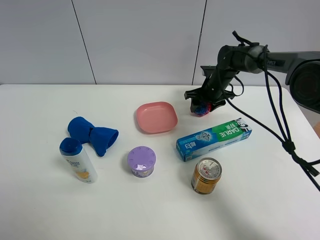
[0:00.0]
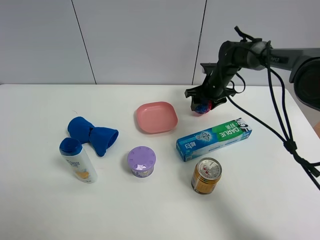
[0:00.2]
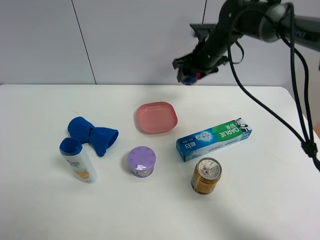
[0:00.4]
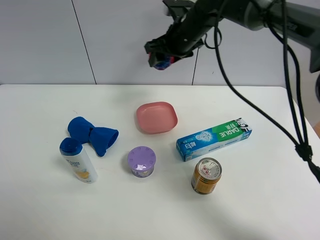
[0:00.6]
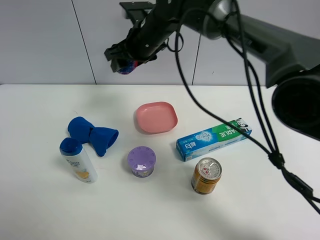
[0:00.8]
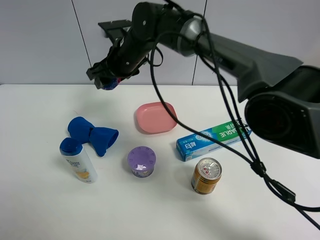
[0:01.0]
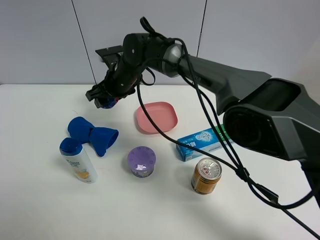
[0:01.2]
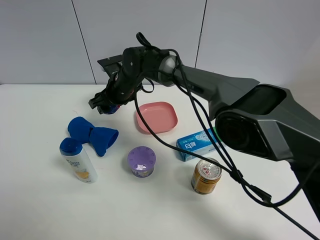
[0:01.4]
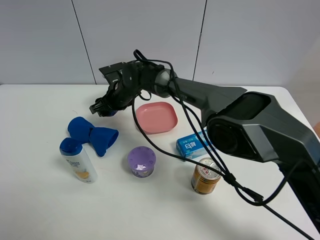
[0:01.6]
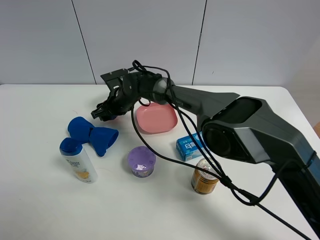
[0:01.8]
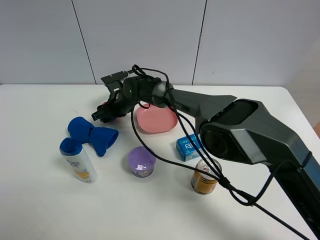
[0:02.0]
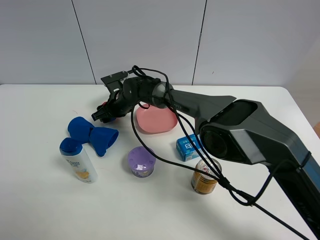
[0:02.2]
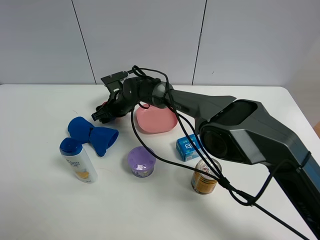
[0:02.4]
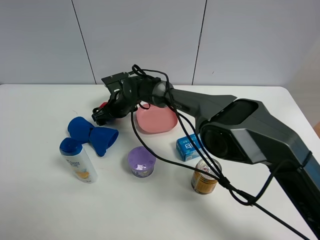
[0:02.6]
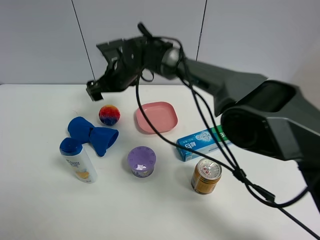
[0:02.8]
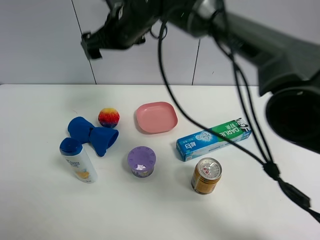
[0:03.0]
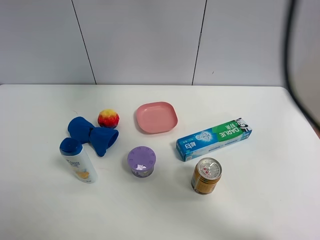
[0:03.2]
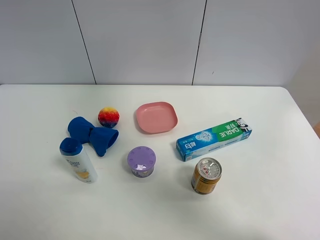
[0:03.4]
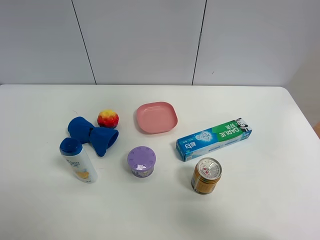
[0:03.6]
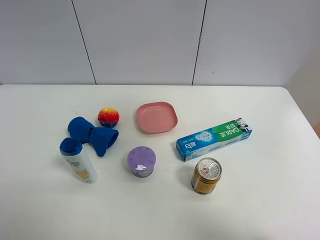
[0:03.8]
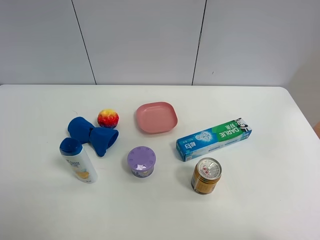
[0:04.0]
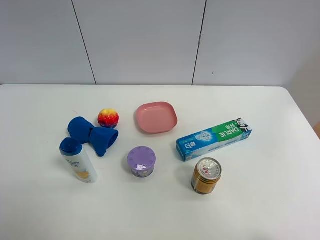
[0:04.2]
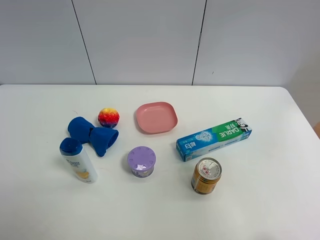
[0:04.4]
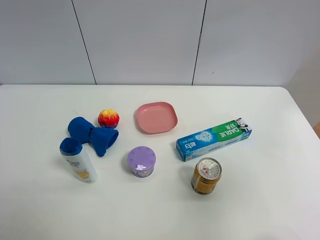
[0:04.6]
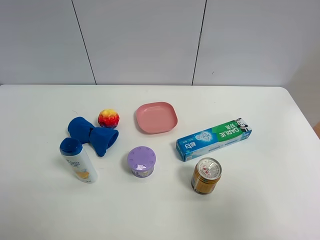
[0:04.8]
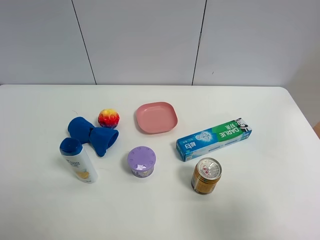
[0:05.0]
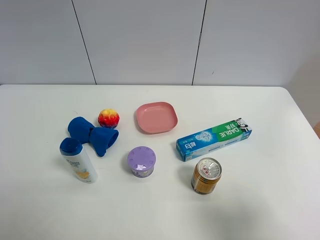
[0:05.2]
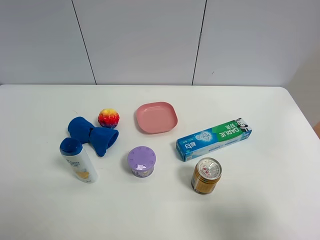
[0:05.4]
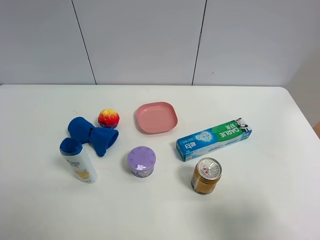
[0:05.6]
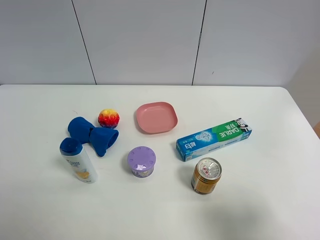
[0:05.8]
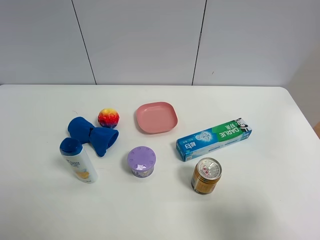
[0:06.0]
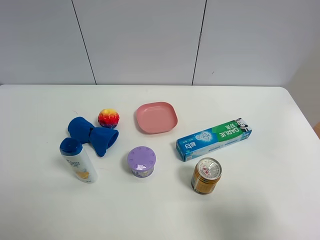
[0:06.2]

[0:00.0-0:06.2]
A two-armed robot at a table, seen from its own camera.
Task of the whole recording: the gripper move the object.
Step, 0:00.2 to 0:02.6: Place the colorful ball on the table with the right gripper.
0:00.0 to 0:01.6: The right gripper goes about 25 cm to the left.
0:01.6 to 0:03.2: The right gripper is displaced upward by roughly 35 cm, and opens up.
0:03.2 to 0:04.6: The right gripper is displaced backward and to the right by approximately 40 cm.
0:04.6 to 0:06.2: The right gripper goes some 15 cm downward.

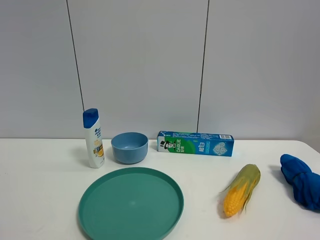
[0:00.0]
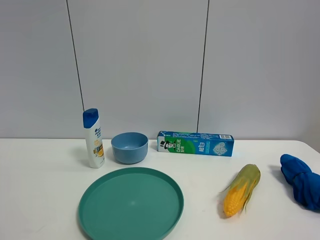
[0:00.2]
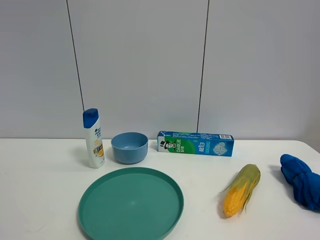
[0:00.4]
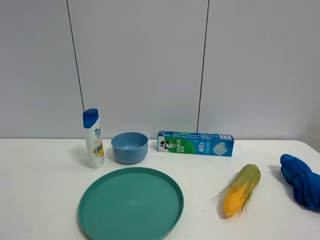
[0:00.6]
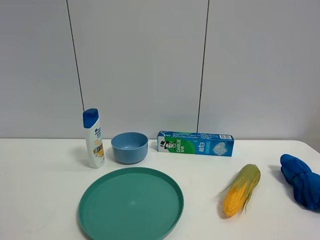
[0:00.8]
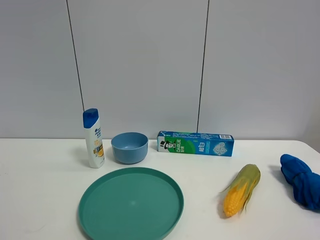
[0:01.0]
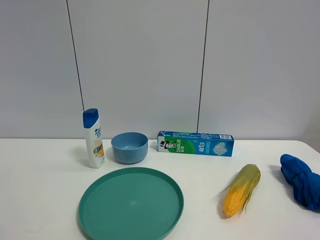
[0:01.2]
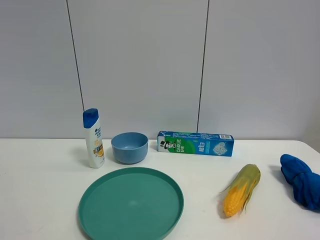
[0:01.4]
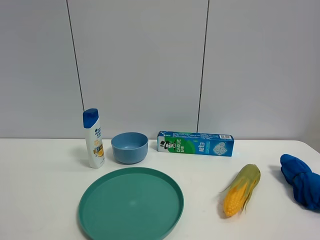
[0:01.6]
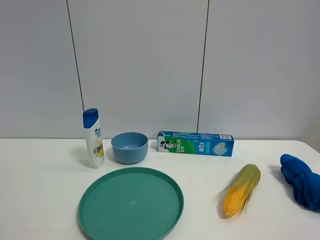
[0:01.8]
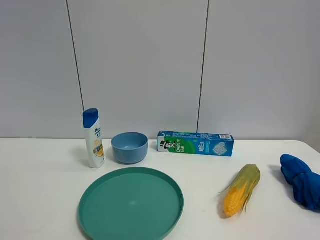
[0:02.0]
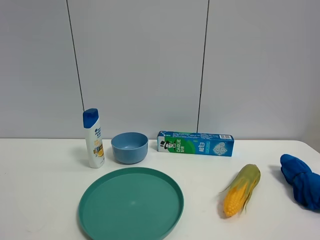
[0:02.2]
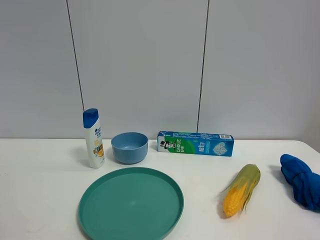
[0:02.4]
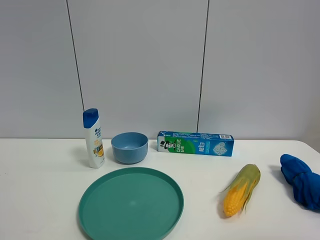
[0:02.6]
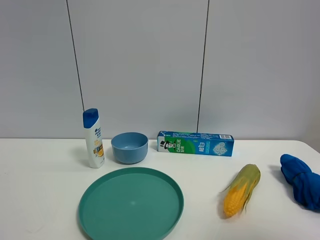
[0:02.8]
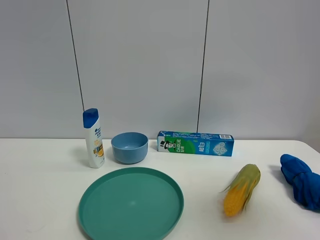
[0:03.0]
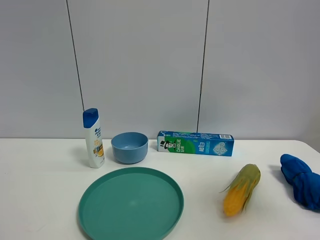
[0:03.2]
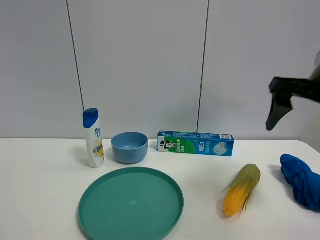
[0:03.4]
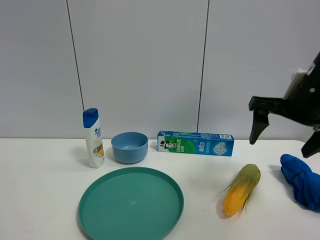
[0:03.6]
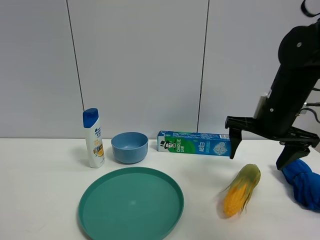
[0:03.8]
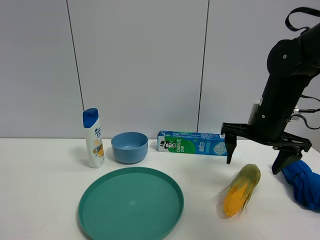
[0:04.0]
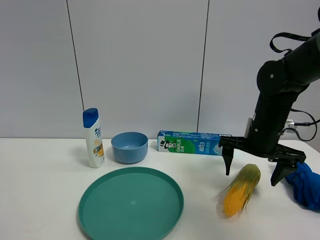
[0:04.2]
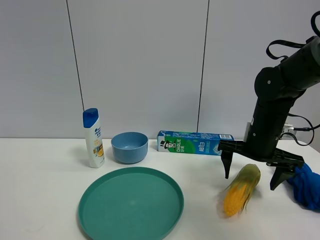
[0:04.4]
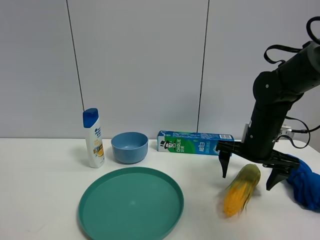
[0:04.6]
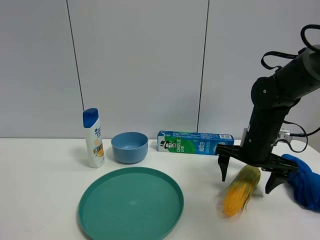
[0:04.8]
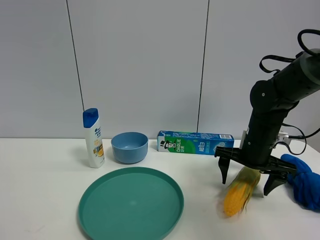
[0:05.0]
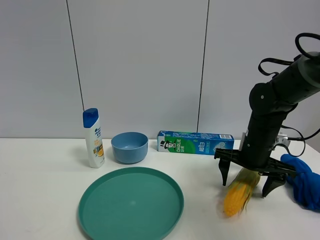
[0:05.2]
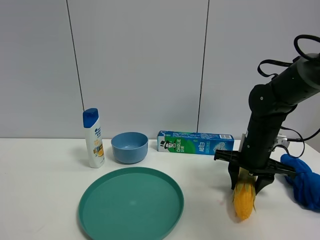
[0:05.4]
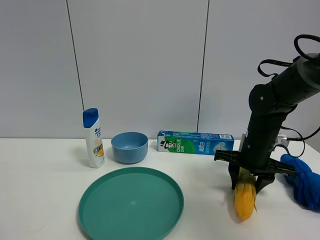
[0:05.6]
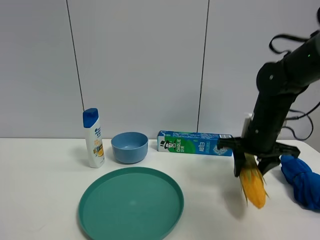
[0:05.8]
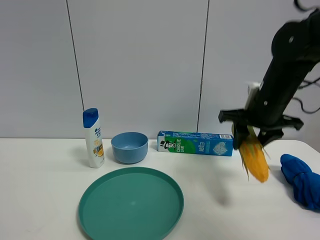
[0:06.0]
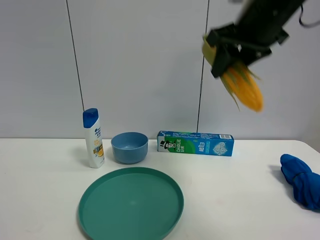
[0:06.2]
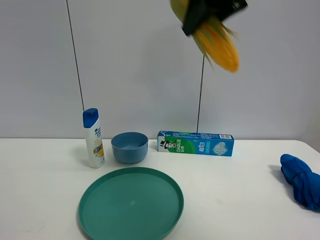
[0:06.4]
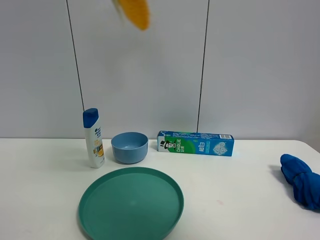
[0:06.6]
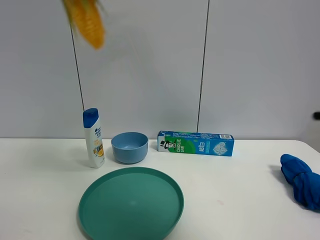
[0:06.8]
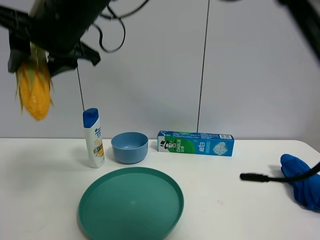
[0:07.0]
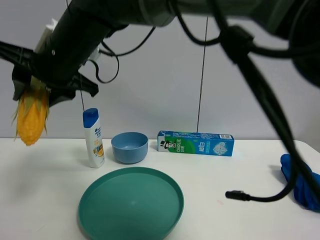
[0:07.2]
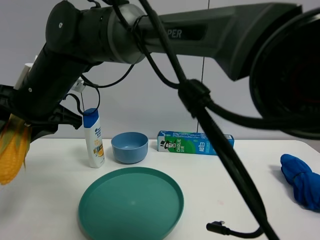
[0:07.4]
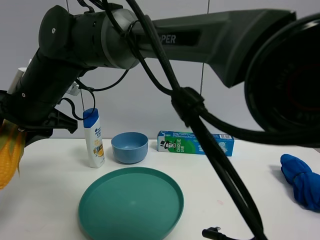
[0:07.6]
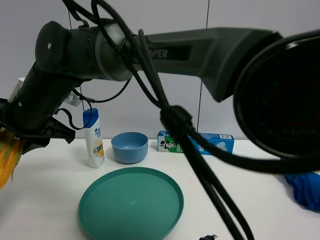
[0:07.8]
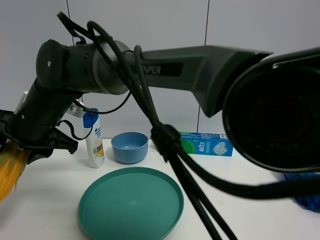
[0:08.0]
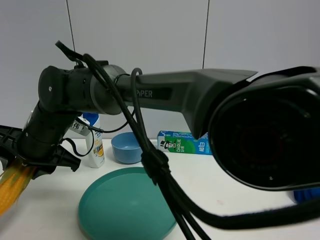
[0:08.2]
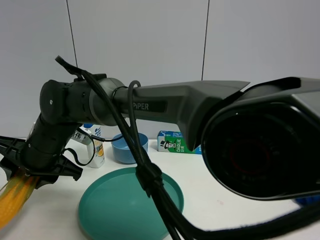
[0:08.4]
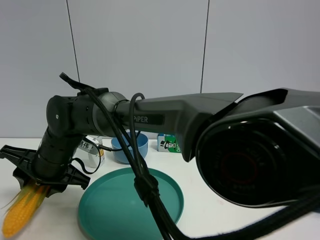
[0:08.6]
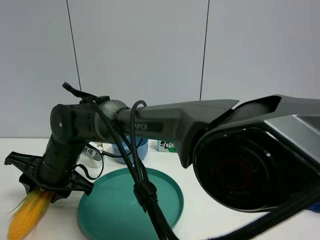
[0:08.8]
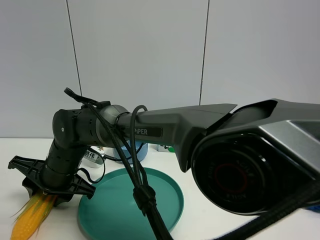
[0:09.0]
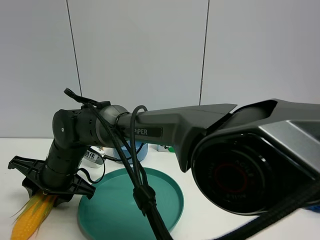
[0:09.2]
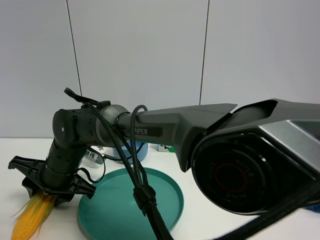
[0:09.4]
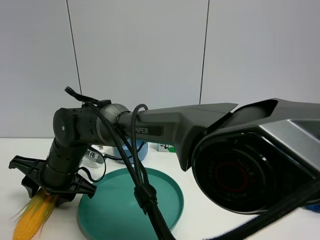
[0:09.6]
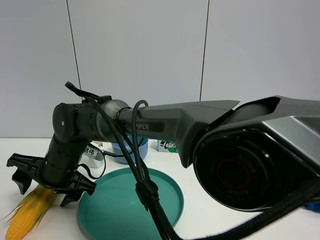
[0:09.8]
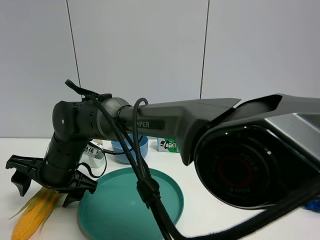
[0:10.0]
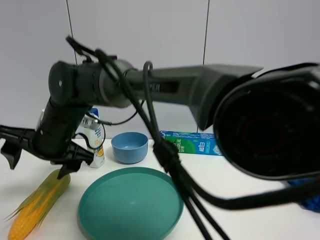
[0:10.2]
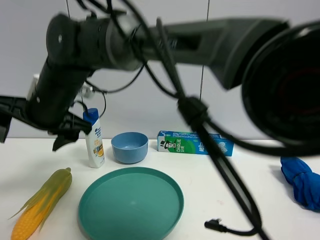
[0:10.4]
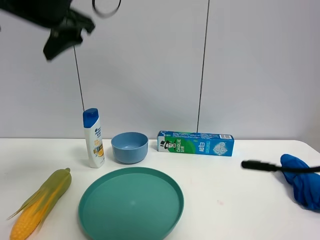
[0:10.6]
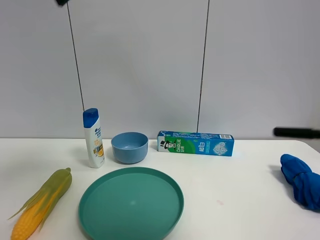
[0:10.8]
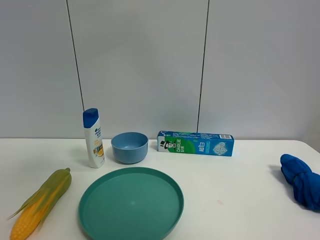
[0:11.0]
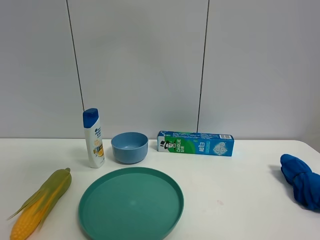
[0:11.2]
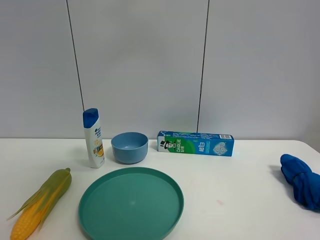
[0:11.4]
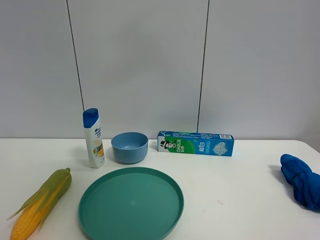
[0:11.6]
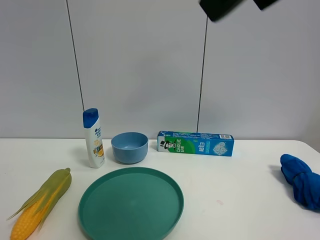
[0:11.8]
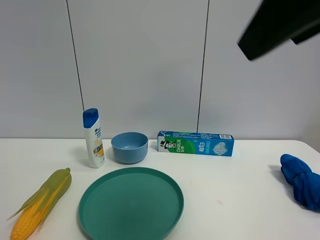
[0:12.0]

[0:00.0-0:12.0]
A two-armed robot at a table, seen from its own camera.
Task of the whole recording: the gripper move the object.
Step, 0:00.0 to 0:05.4: Grasp the corn with the right gripper.
Step, 0:05.6 to 0:10.2: Place the corn on the table with the right gripper.
0:00.0 to 0:01.6: The two grippers keep their place.
0:01.6 to 0:03.0: The right gripper heads forward and upward, covering about 20 cm.
0:03.0 to 0:04.4: The right gripper shifts about 30 cm downward and forward.
0:04.4 to 0:06.0: The right gripper shifts about 10 cm upward, and closes up.
0:06.0 to 0:07.6: The right gripper moves to the left, roughly 40 cm.
0:07.6 to 0:09.0: The right gripper moves downward, approximately 15 cm.
0:09.0 to 0:10.4: The right gripper goes roughly 15 cm upward, and opens its fingers.
0:10.4 to 0:12.0: The right gripper goes approximately 40 cm to the right, backward and upward.

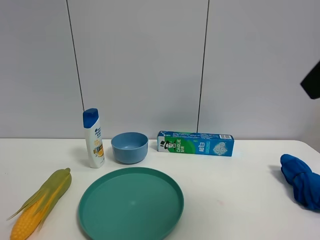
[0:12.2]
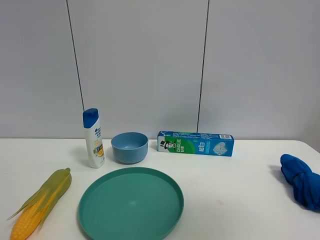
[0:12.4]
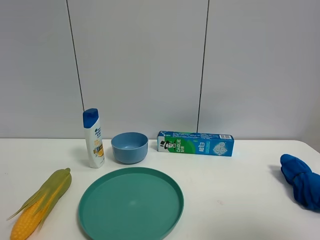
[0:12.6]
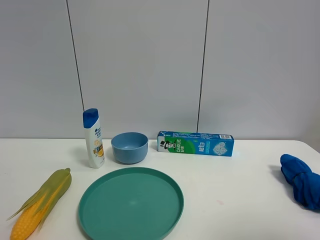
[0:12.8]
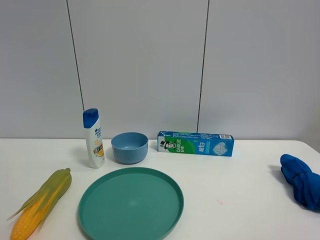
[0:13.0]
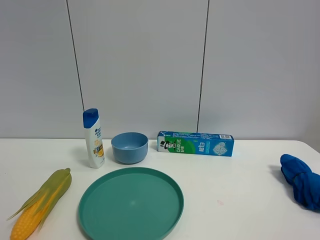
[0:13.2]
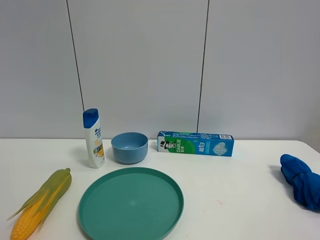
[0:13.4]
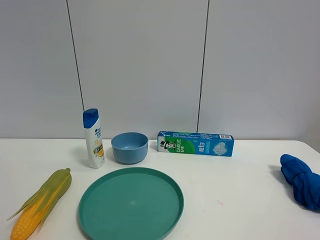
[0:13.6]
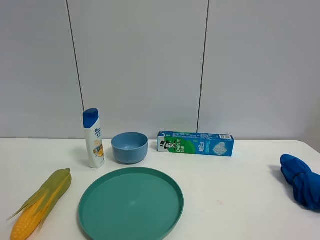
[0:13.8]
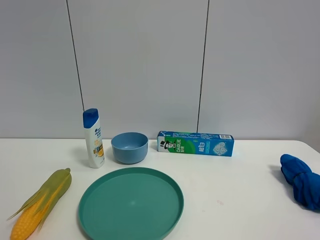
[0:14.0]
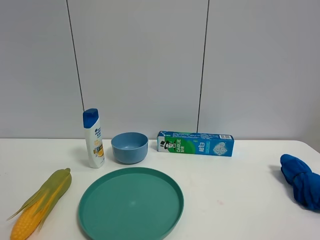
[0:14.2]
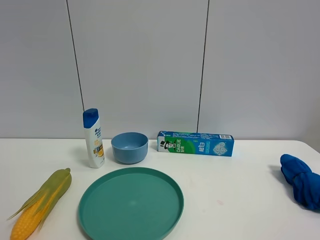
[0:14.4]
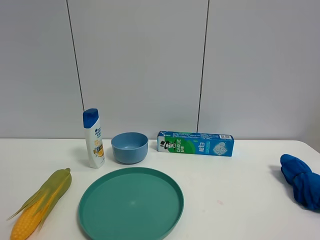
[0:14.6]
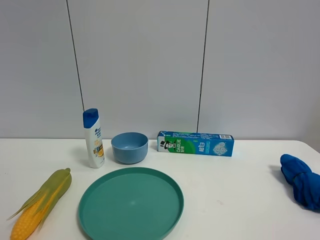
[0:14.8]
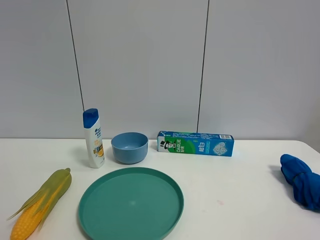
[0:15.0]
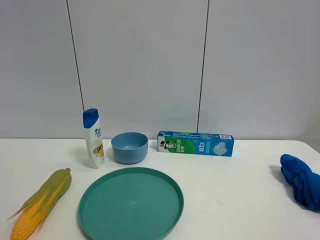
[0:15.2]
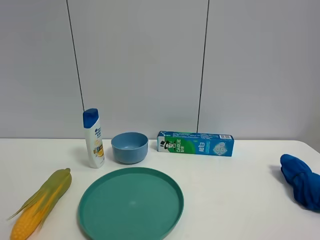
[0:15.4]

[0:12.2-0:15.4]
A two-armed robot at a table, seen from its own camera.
Task of the whole recording: the gripper move the object.
0:12.2 to 0:13.8: The right gripper heads backward, downward and to the right, covering approximately 20 cm.
